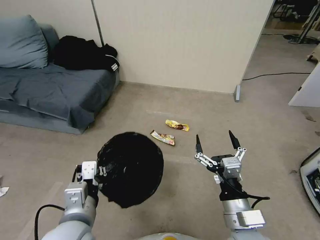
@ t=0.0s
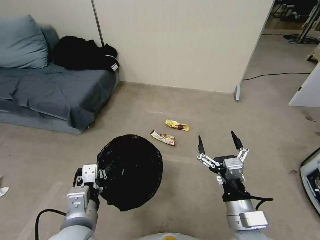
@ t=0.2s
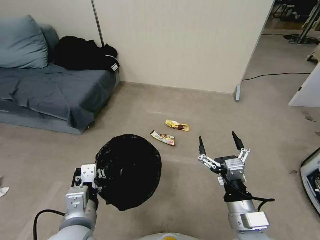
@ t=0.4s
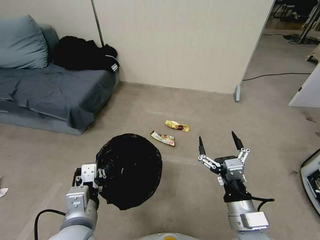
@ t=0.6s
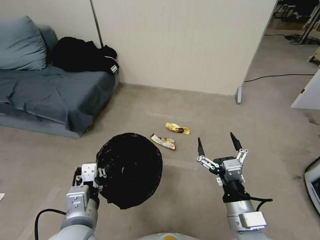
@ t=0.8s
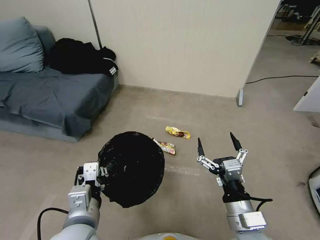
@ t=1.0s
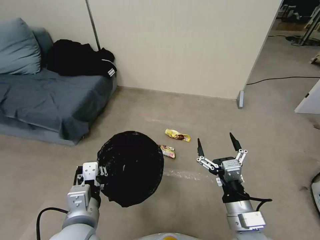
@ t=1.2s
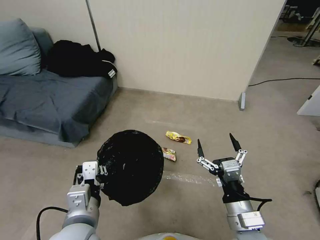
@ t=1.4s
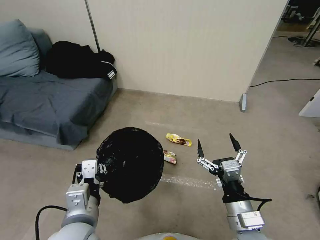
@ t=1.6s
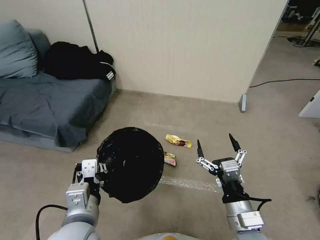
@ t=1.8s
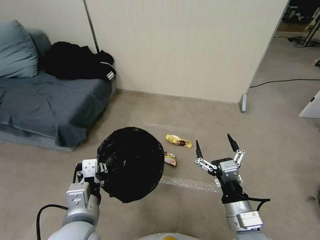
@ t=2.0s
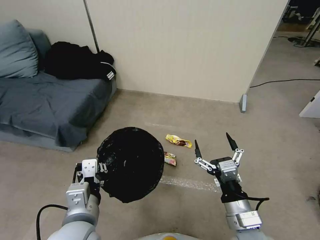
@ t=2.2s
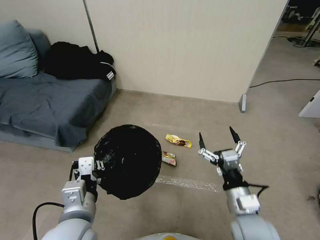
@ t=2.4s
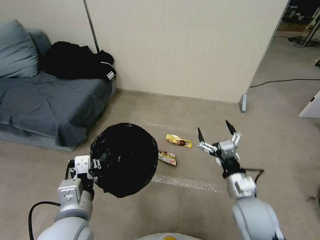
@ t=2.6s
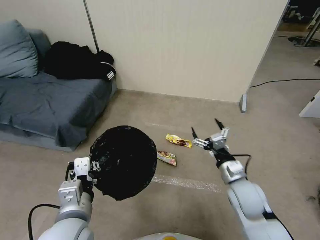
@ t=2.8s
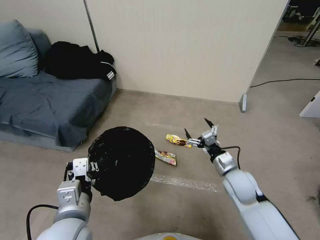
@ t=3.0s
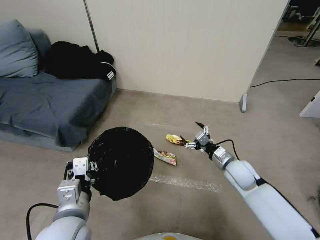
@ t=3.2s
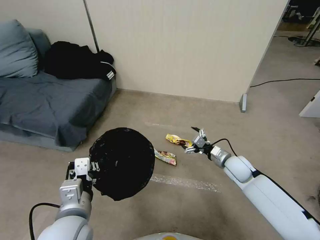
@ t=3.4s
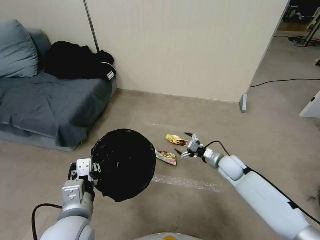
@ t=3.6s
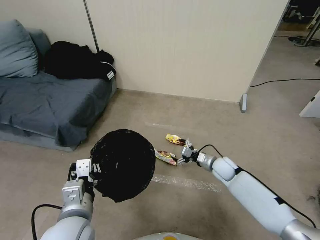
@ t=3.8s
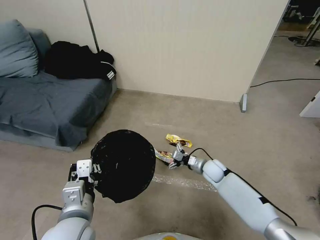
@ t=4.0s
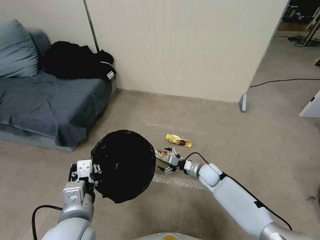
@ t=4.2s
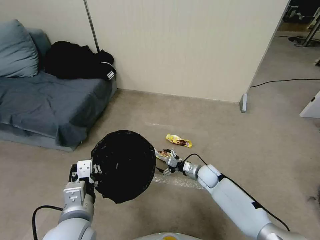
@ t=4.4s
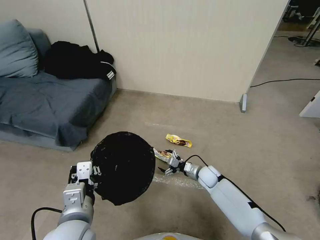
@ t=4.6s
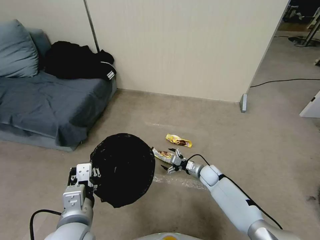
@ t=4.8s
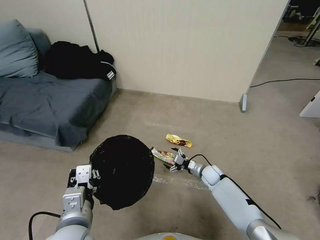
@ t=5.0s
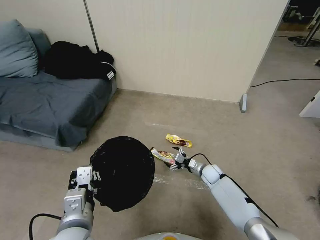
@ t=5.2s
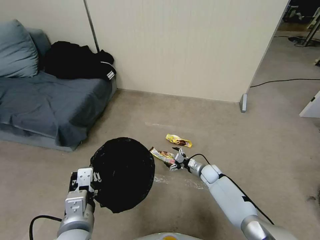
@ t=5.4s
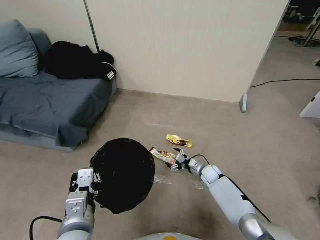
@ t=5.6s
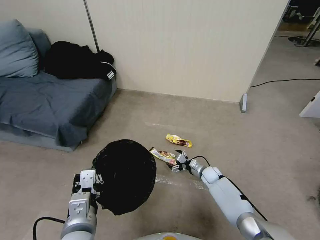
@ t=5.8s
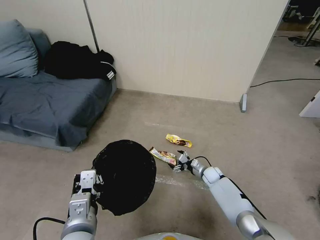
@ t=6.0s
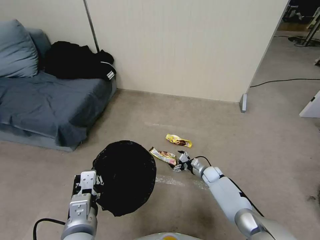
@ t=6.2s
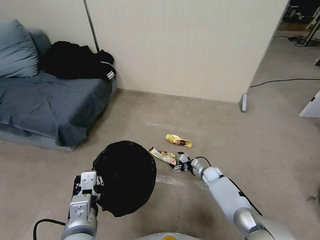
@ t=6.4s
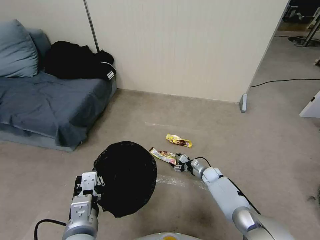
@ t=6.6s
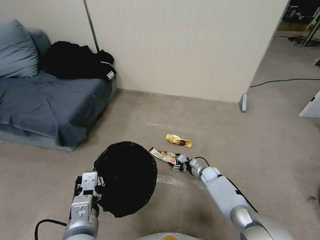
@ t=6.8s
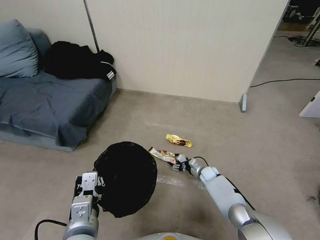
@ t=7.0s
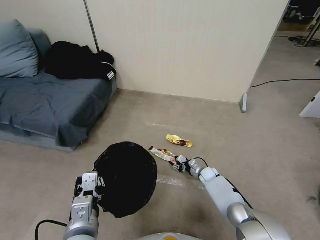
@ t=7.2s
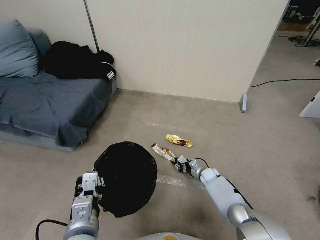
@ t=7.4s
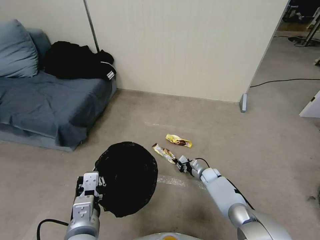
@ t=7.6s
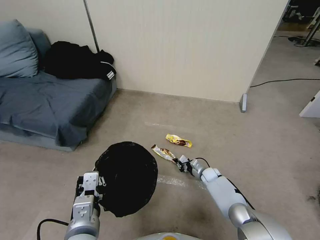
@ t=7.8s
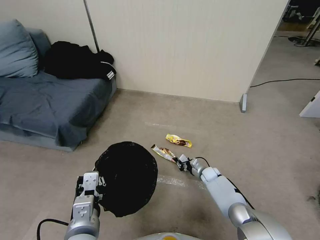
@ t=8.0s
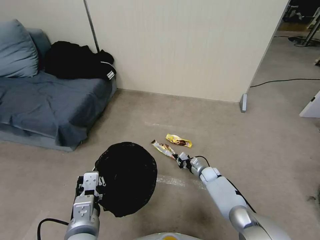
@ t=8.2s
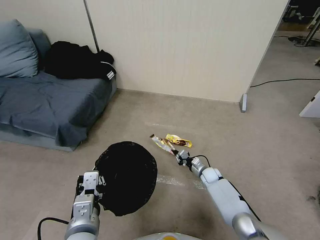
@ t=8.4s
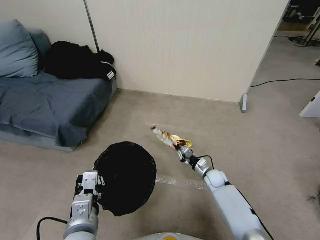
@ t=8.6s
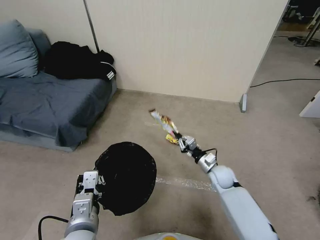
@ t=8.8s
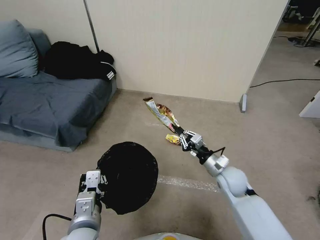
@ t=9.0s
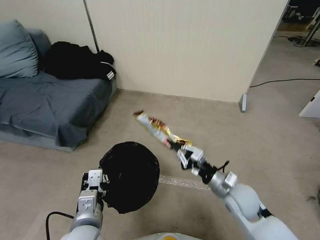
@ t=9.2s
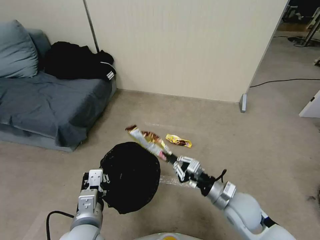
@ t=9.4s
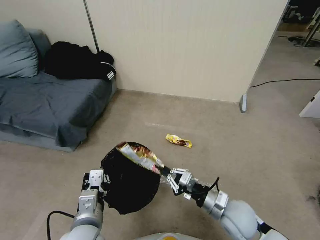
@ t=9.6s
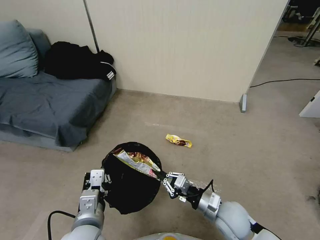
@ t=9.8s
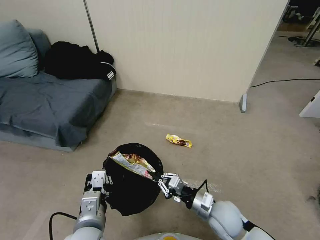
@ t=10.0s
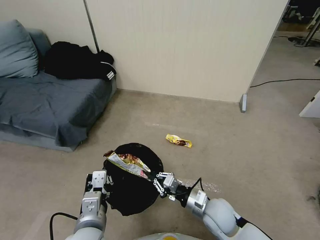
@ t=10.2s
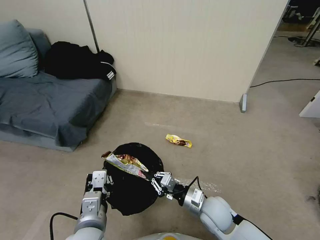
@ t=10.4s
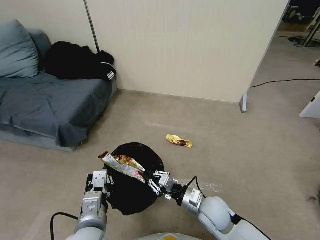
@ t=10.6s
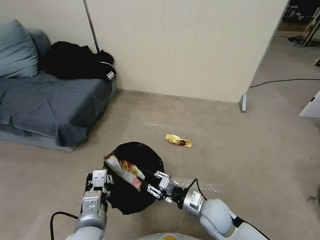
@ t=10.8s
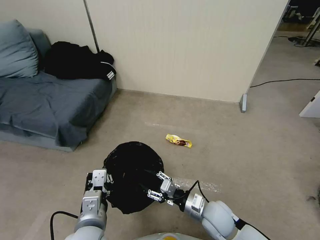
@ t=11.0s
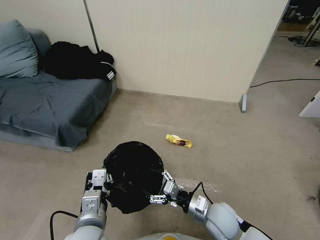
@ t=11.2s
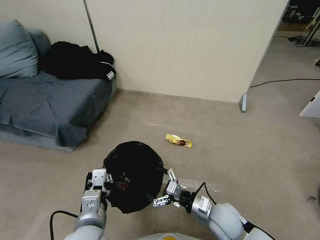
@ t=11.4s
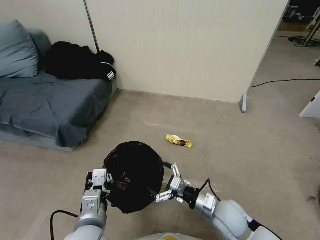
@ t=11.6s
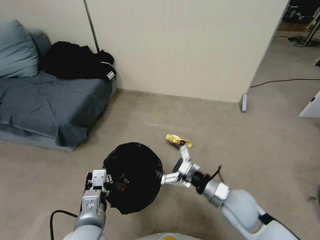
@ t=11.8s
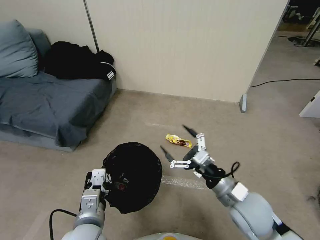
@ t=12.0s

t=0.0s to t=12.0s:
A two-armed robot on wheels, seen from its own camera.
Task of the whole recording: Pick up the trash bin, then pick up the garbage from the floor and place it into the trash bin.
t=1.6s to t=3.0s: The right gripper heads forward, covering some 20 cm.
t=3.0s to t=4.4s: The right gripper heads downward and forward, covering approximately 15 cm.
t=4.4s to t=6.0s: The right gripper travels downward by some 10 cm.
t=6.0s to t=7.6s: The right gripper closes.
t=7.6s to t=9.0s: The right gripper travels upward and backward by roughly 25 cm.
t=9.0s to t=10.4s: The right gripper shifts some 10 cm backward and to the left.
t=10.4s to t=12.0s: The right gripper goes some 15 cm upward and to the right, and opens.

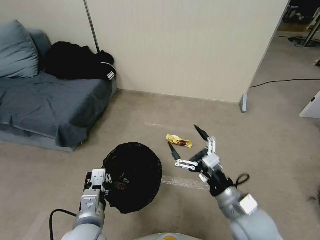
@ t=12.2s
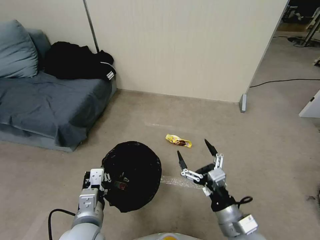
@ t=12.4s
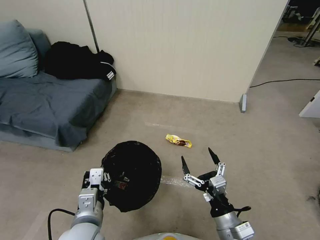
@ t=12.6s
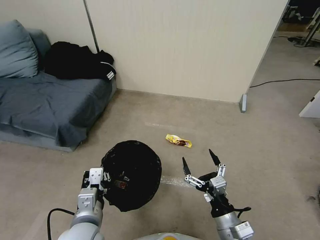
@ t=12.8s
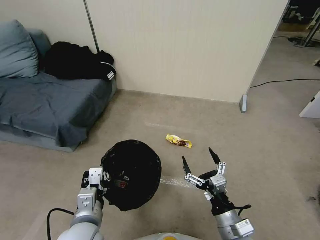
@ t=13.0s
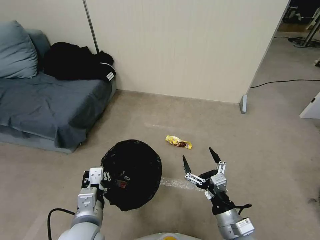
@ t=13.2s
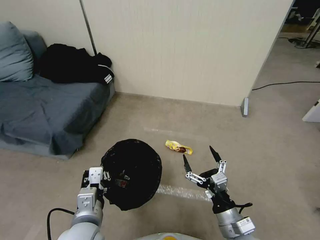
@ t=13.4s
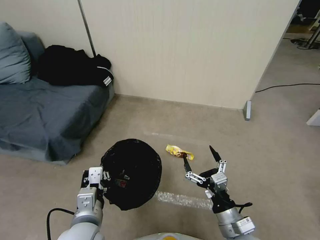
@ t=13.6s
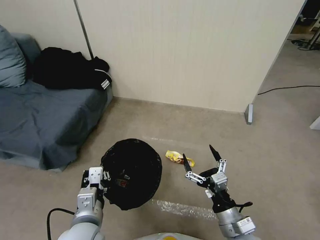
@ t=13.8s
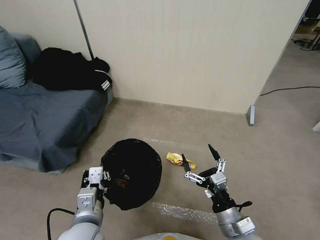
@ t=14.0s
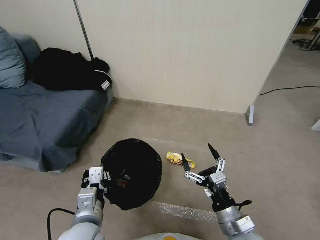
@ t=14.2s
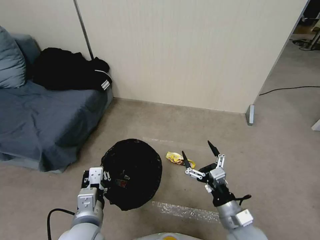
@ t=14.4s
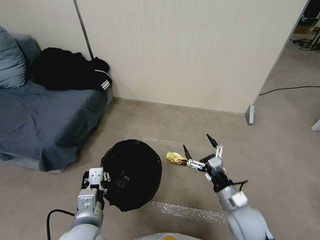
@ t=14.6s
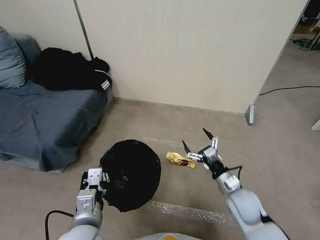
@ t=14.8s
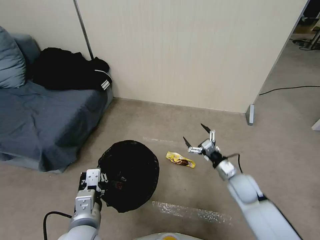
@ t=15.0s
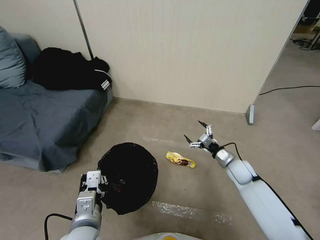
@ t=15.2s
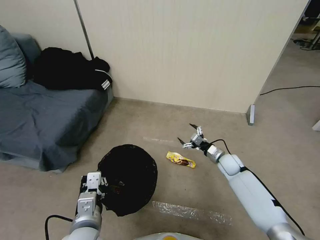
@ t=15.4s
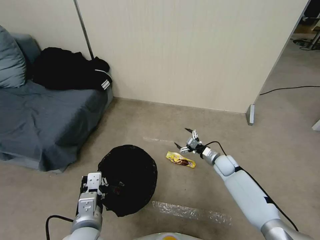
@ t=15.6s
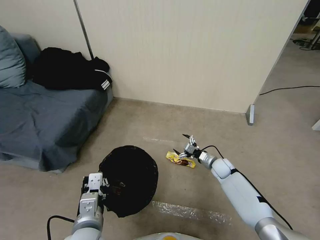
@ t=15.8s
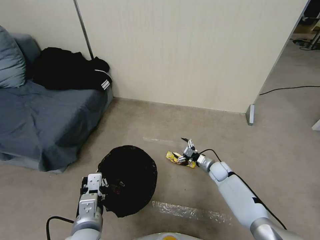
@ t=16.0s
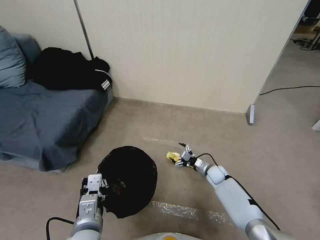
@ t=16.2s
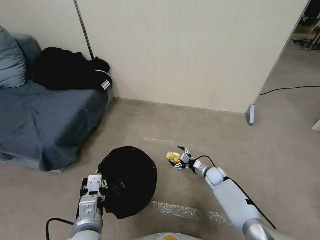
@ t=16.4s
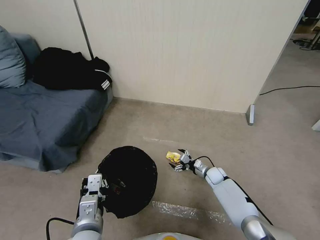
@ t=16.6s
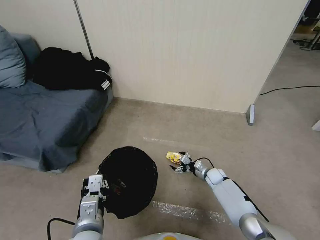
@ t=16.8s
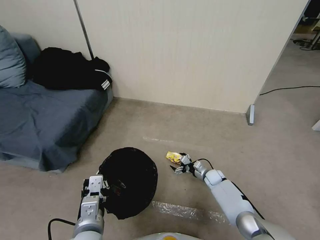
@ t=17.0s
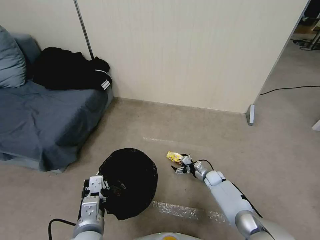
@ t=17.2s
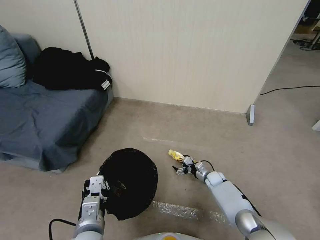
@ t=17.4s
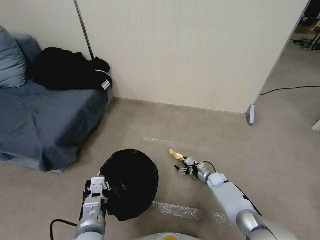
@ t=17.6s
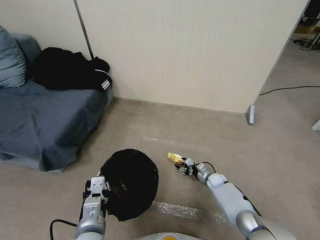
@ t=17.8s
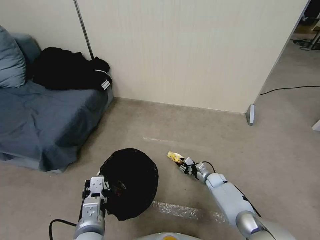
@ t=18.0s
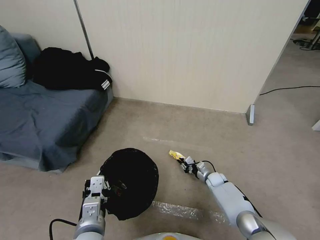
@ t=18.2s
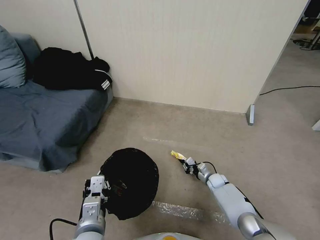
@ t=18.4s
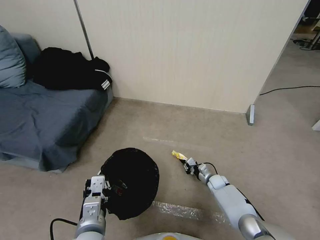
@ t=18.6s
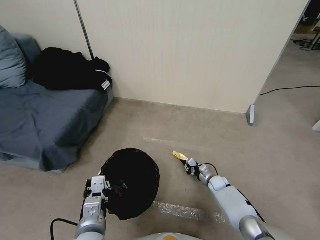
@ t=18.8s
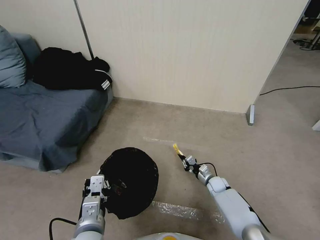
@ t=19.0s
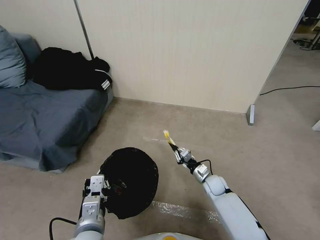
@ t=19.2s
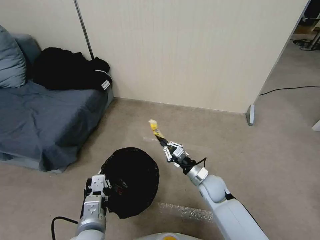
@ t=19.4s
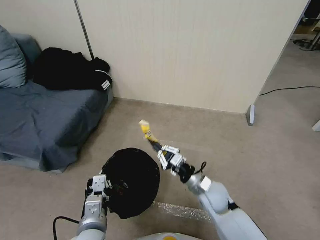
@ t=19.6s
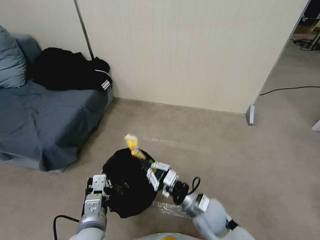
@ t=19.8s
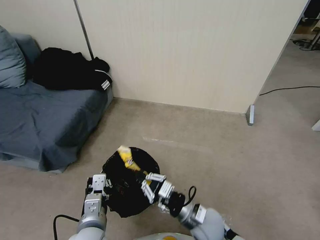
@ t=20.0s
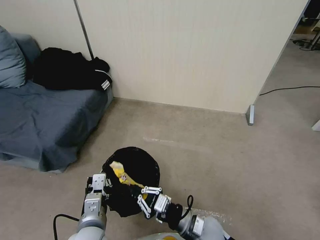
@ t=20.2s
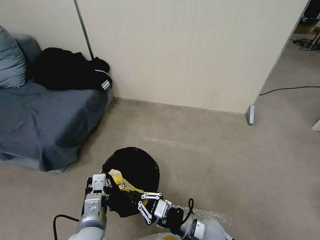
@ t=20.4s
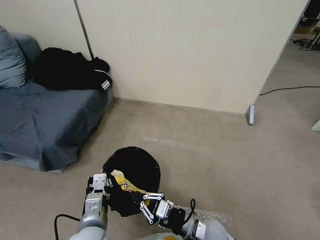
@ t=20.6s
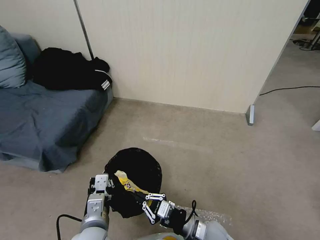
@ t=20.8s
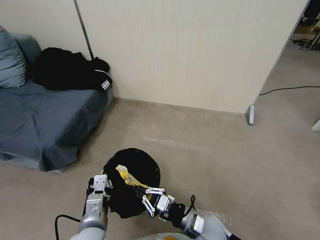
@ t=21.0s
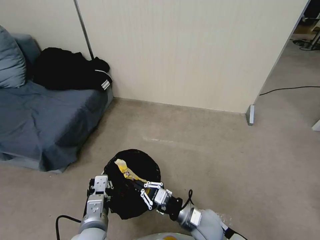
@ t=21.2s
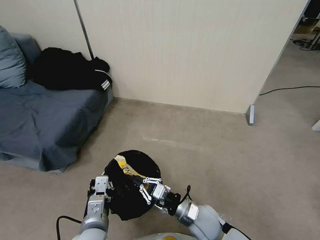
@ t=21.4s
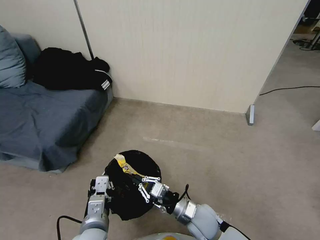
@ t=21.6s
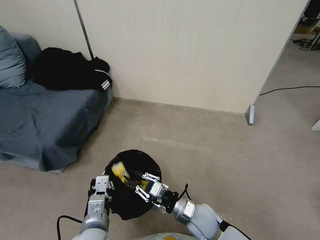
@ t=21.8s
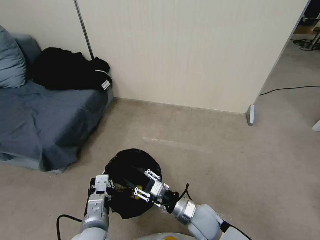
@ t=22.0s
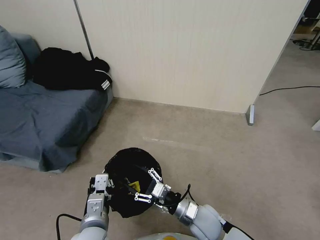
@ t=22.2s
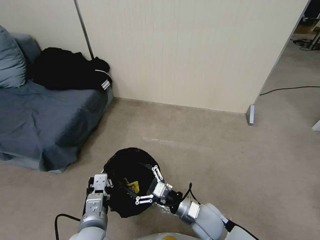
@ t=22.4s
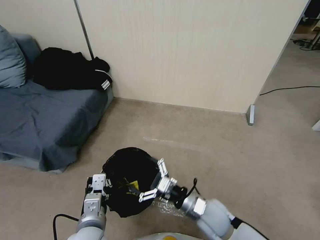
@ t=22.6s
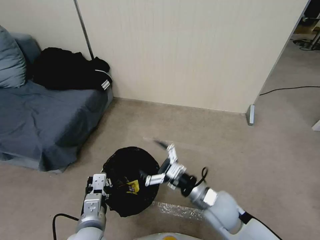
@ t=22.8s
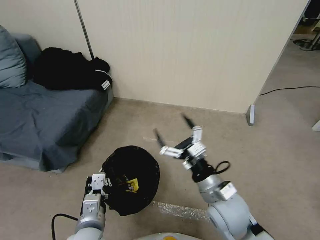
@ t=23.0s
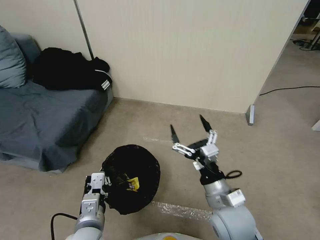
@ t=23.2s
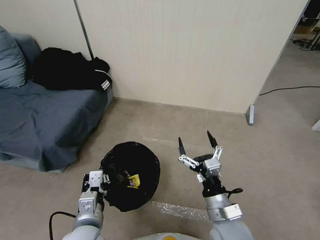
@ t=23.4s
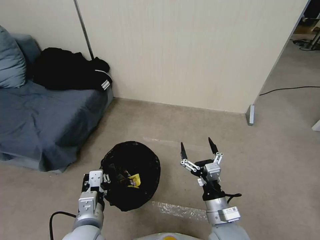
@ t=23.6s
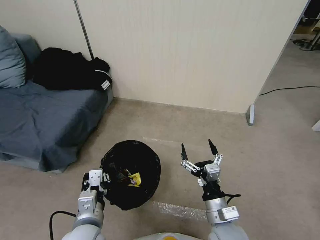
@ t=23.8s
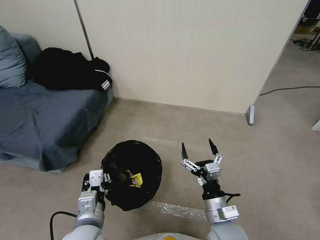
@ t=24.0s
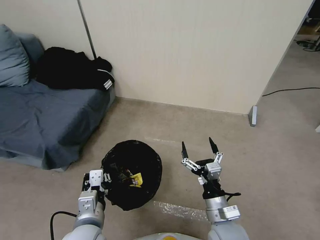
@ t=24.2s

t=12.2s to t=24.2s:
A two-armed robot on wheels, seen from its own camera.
Task of the whole recording: Pick up the trash bin, then pick up the garbage from the floor and place it into the trash bin.
t=12.2s to t=13.8s: The right gripper travels downward by some 5 cm.
t=13.8s to t=15.2s: The right gripper heads forward and to the right, covering approximately 25 cm.
t=15.2s to t=16.6s: The right gripper goes about 15 cm downward.
t=16.6s to t=18.2s: The right gripper closes up.
t=18.2s to t=19.8s: The right gripper goes about 30 cm upward, backward and to the left.
t=21.2s to t=22.6s: The right gripper opens.
t=22.6s to t=24.2s: The right gripper heads backward, covering about 5 cm, and travels upward and back again, about 10 cm each way.
